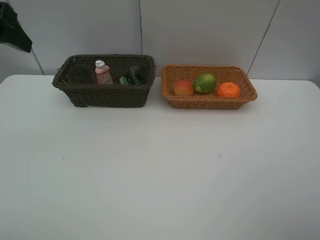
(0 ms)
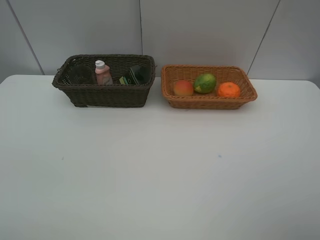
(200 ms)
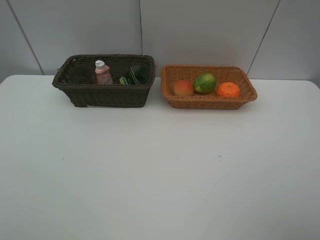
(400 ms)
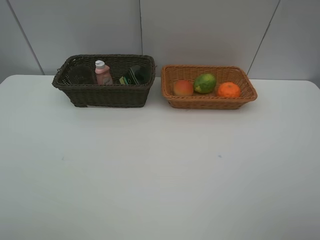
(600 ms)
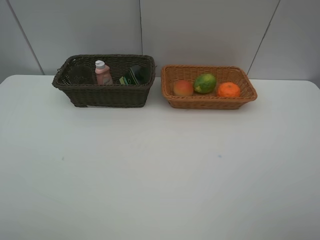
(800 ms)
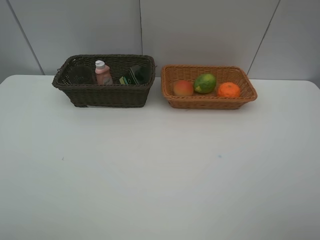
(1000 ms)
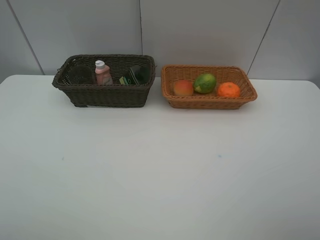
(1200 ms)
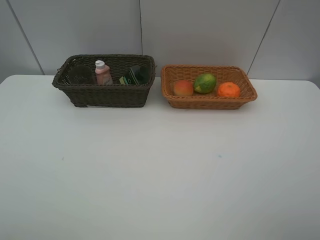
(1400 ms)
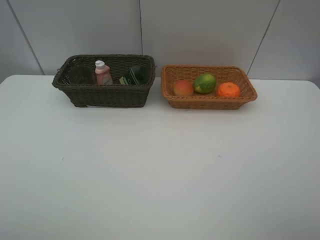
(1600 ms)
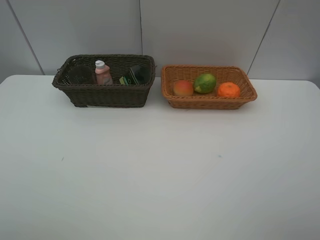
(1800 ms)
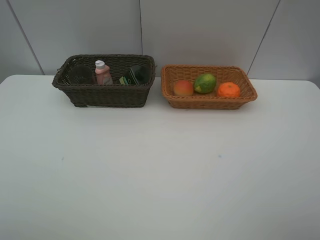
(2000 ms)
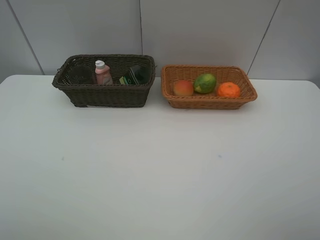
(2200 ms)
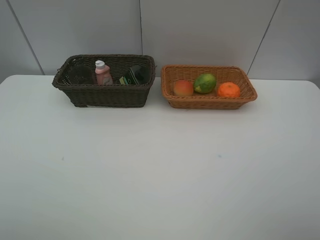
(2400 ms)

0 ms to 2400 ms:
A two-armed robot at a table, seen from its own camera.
Task of the whole recording: place multiple objects separately in different baskets.
0 ms to 1200 ms: The left gripper heads backward, covering approximately 25 cm.

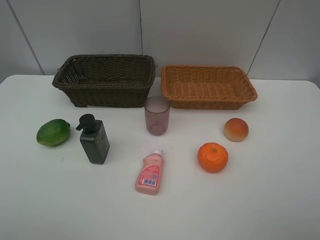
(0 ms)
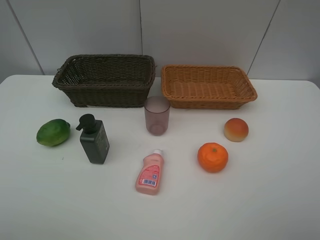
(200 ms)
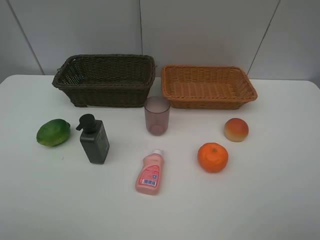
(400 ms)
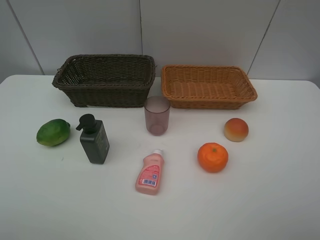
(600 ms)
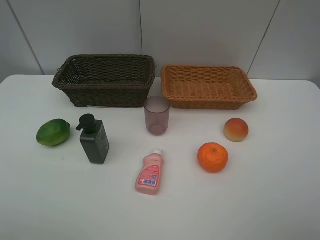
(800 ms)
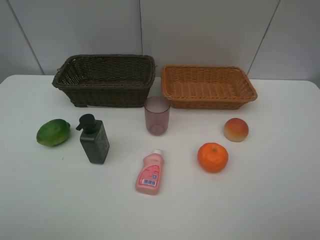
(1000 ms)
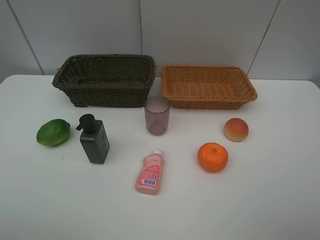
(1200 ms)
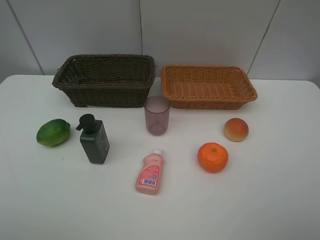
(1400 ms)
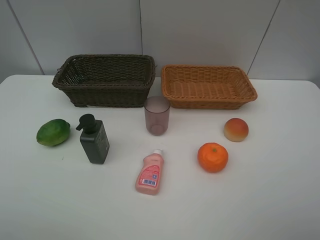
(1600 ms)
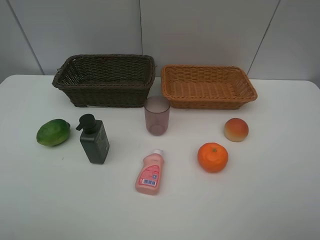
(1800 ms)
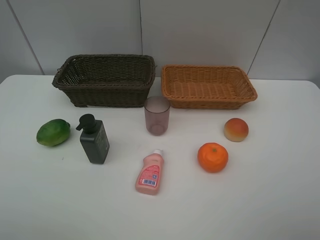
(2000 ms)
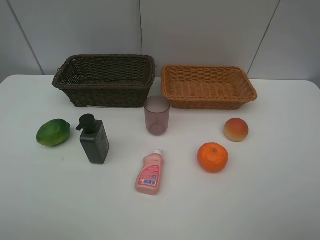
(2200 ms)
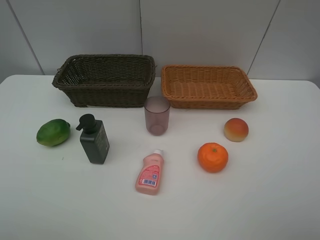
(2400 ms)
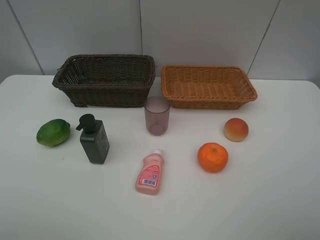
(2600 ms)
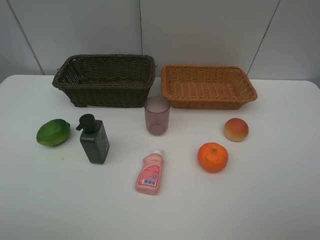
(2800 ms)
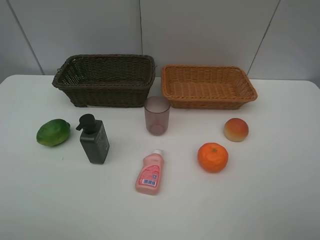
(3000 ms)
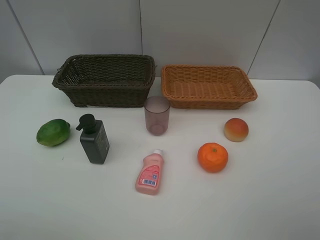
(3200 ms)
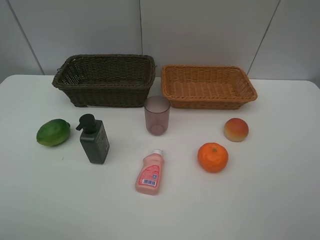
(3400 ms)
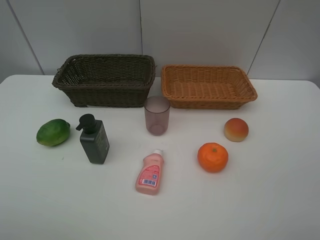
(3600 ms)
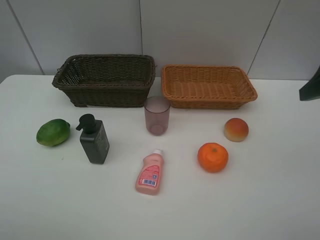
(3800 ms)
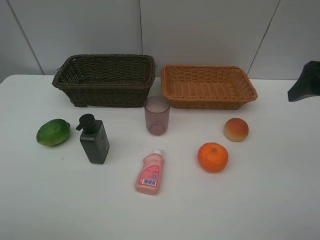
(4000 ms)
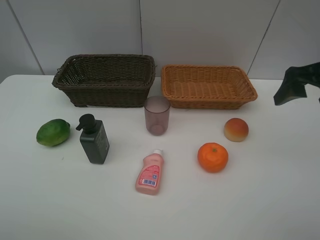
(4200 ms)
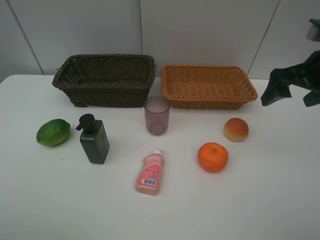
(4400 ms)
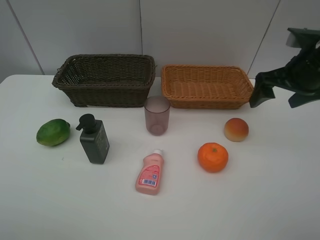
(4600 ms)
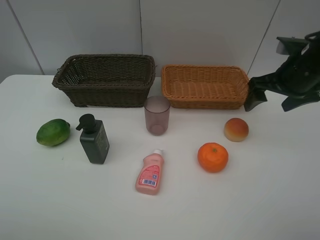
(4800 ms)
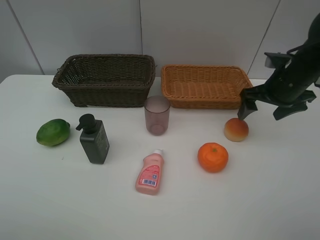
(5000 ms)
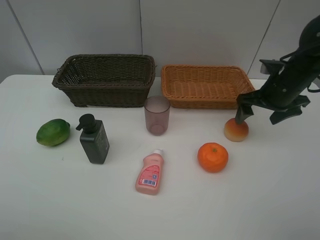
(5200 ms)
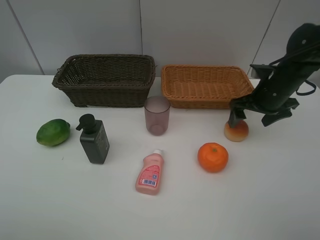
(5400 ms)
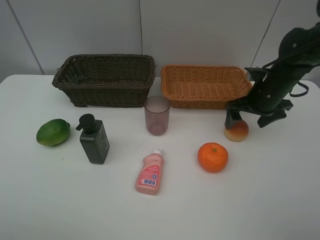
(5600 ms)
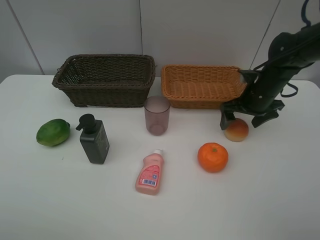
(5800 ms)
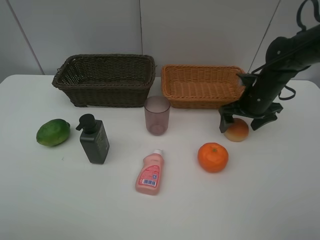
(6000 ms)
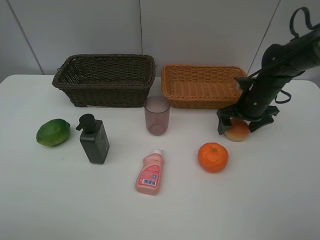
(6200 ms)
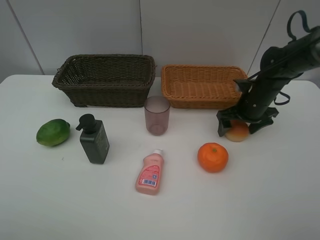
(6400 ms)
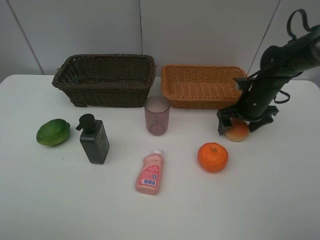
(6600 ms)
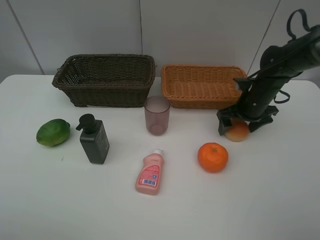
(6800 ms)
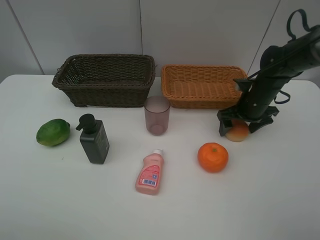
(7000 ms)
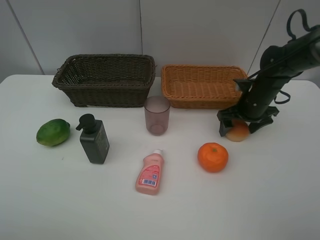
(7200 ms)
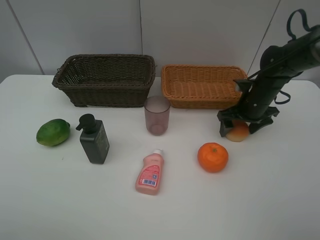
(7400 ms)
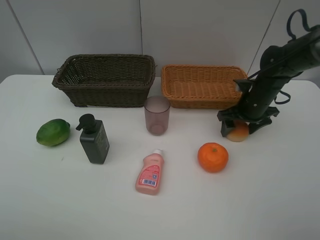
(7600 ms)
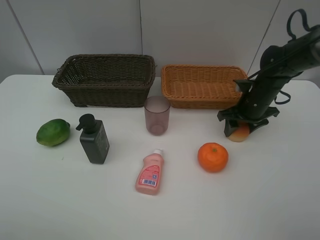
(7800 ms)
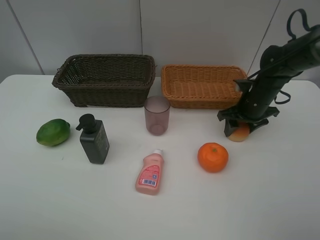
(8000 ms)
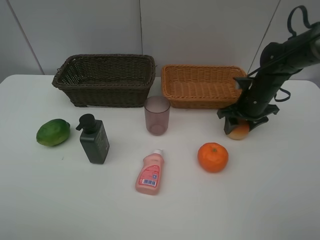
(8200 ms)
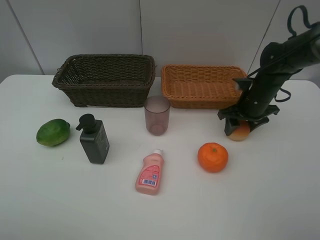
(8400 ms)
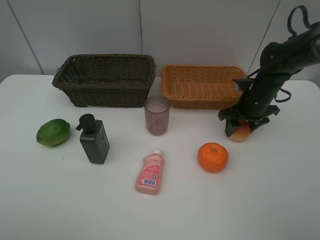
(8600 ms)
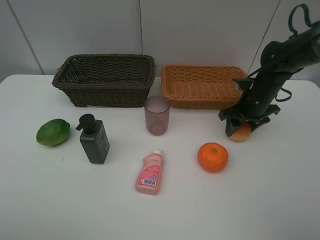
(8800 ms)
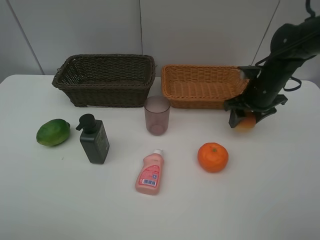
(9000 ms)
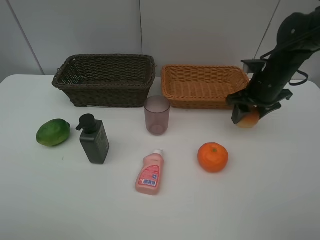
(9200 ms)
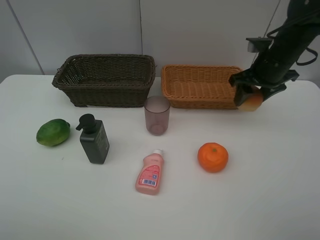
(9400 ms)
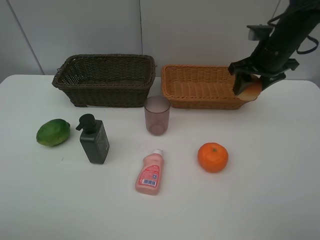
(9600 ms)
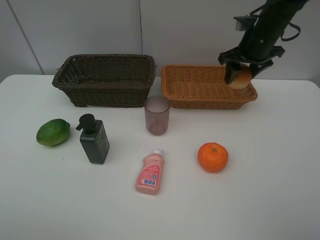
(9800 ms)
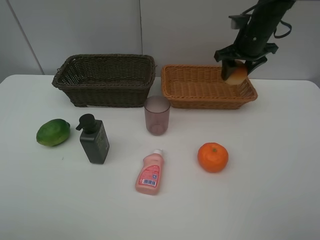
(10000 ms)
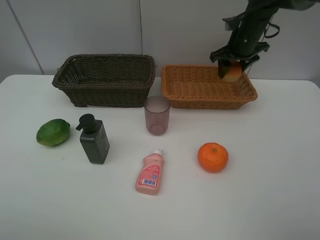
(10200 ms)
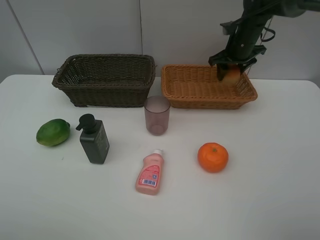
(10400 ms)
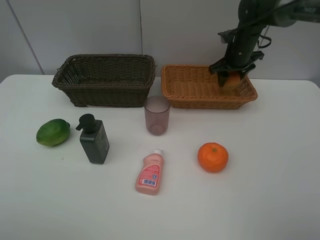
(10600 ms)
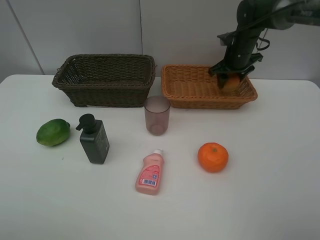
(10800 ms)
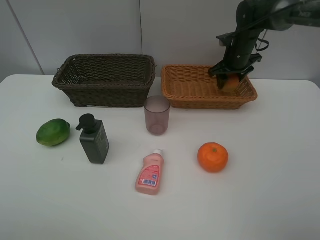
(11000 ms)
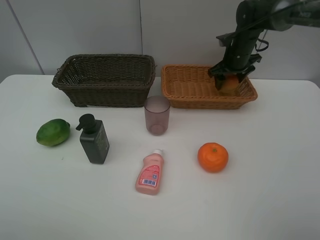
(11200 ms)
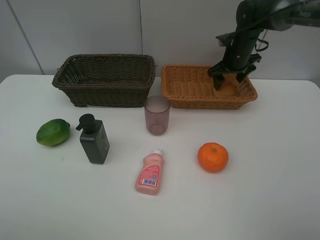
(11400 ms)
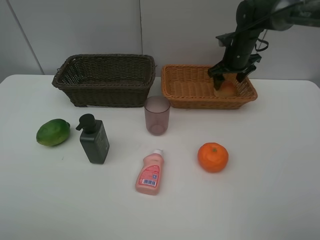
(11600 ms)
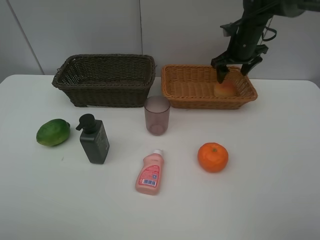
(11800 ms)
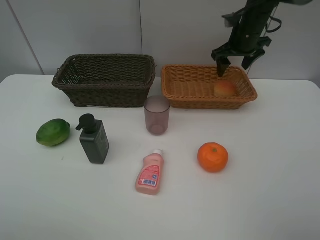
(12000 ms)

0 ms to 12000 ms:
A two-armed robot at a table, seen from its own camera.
Task of the whole recording: place multiple objects separately in different baskets.
0 ms to 1600 ms: The two grippers keep their place.
3000 ms to 4400 ms: The right gripper moves forward, some 20 cm.
4400 ms to 6000 ms: The right gripper is displaced downward and forward by approximately 15 cm.
6000 ms to 7600 ms: The right gripper closes.
7600 ms to 9000 ms: The right gripper closes.
9000 ms to 10400 ms: The right gripper goes approximately 15 cm forward.
10400 ms to 12000 ms: The right gripper opens up.

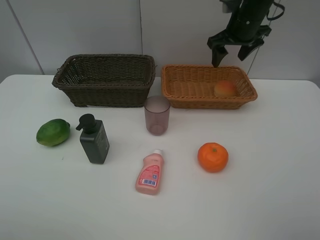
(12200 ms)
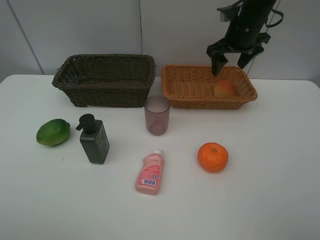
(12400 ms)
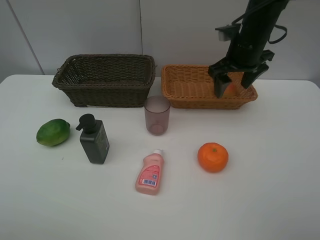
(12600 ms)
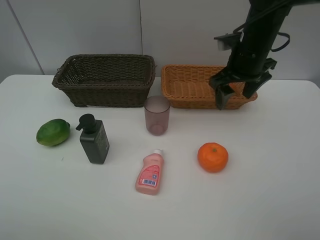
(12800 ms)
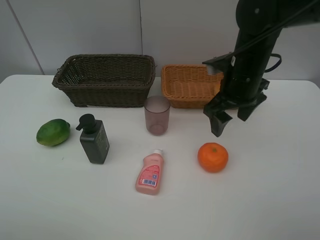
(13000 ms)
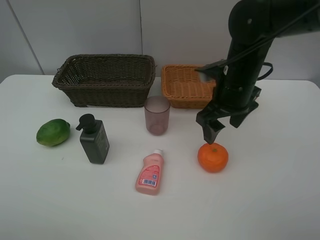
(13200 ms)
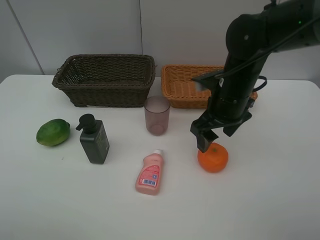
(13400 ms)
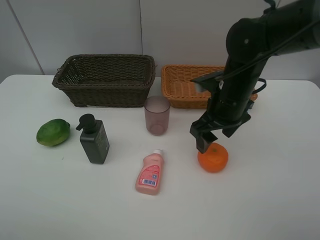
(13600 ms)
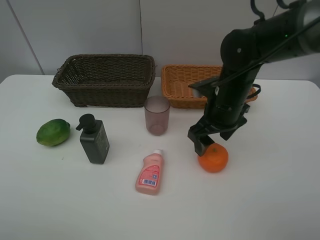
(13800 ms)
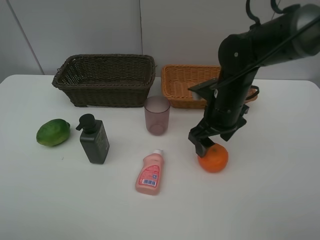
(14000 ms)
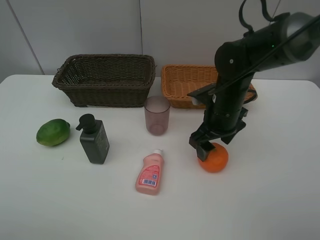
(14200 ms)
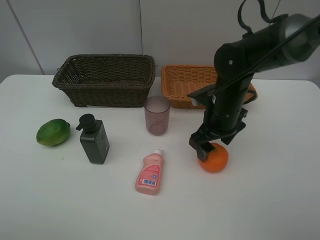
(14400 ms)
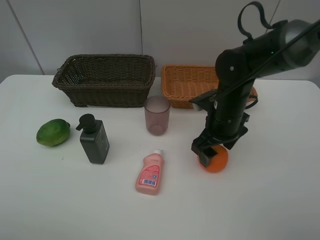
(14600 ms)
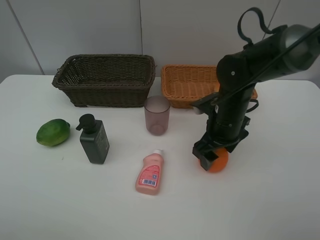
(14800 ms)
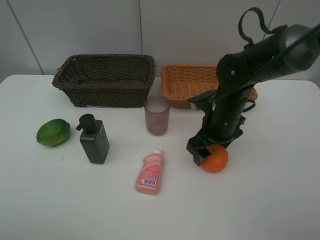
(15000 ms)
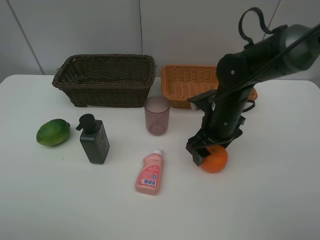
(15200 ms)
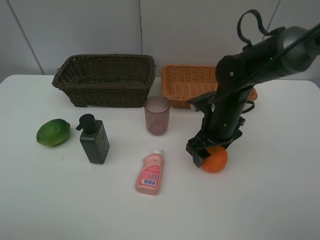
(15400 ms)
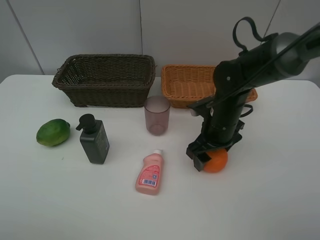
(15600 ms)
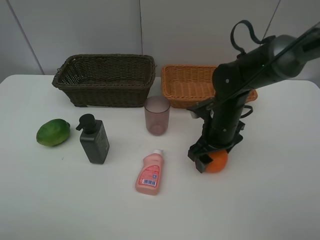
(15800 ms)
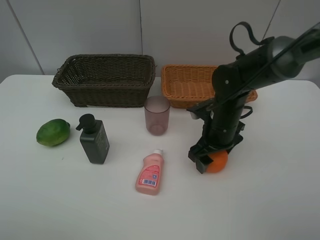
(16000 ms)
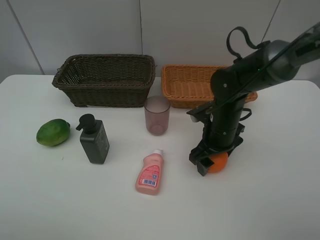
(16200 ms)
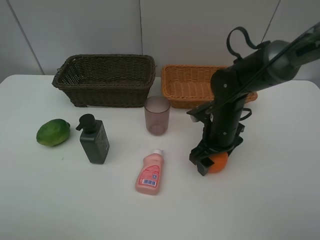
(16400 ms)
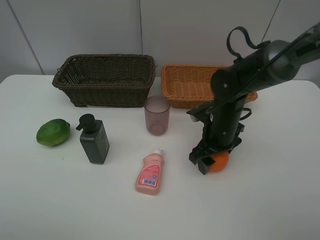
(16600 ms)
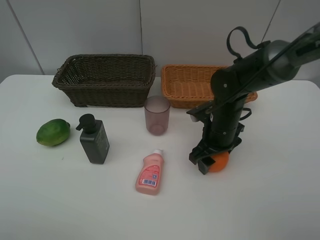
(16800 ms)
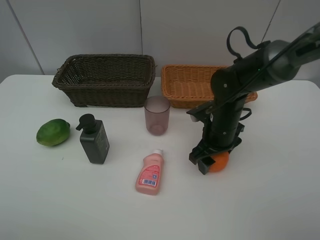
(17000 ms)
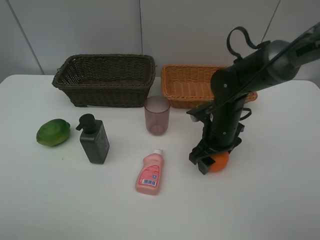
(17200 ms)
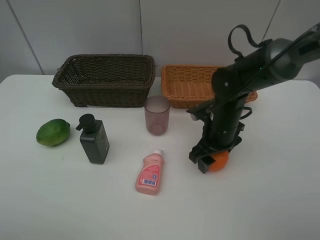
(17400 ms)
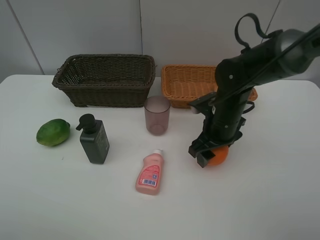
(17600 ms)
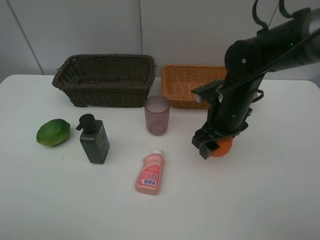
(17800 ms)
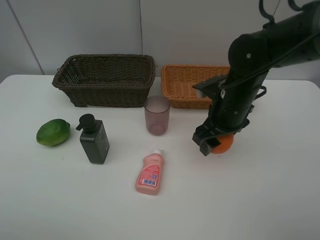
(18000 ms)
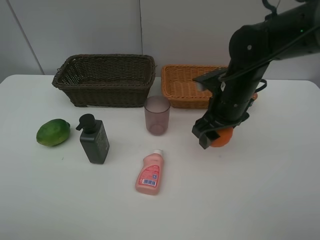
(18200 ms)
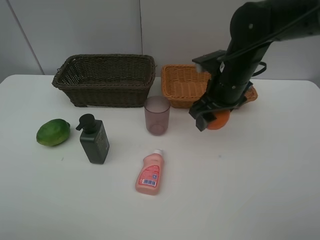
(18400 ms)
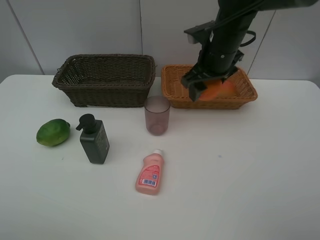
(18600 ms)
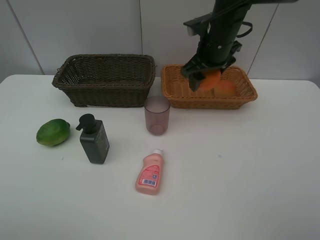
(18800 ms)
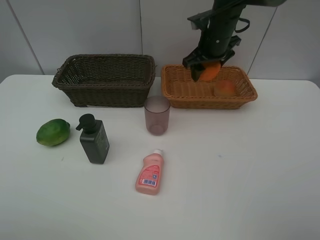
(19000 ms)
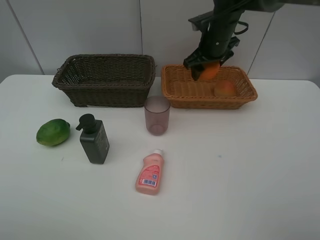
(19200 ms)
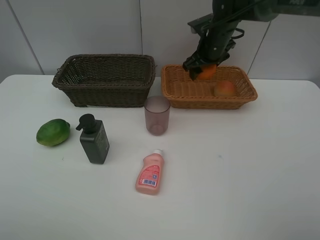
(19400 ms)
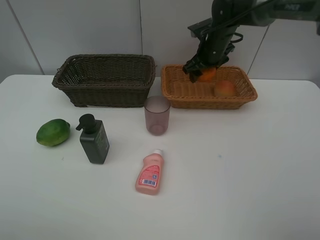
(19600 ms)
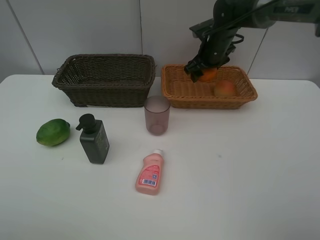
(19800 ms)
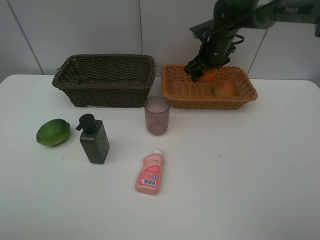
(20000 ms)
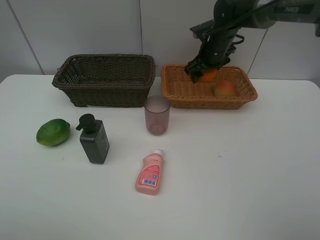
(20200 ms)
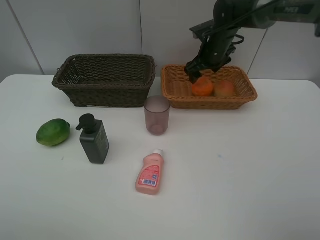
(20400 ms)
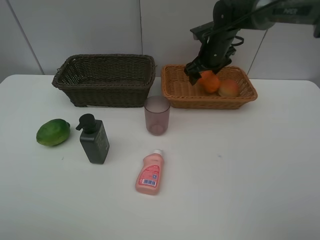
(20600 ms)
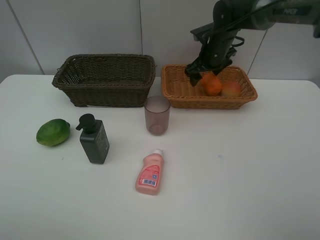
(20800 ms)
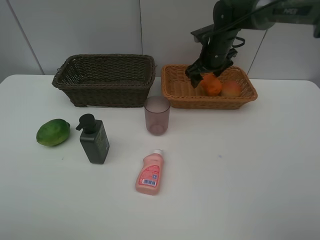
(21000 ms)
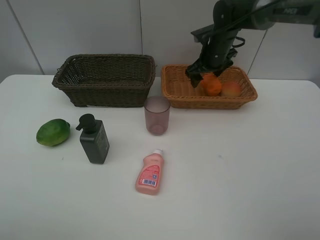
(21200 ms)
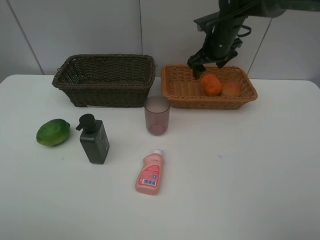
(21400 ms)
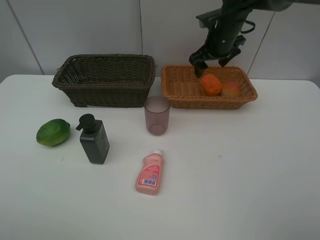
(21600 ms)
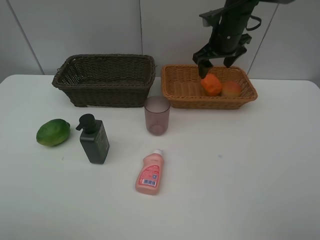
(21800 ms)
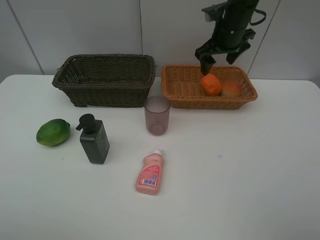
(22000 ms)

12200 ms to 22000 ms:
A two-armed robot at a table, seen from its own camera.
Task of the whole recording: place multiple objects separately in different baskets.
12200 ms to 13600 ms: The right gripper moves backward and downward, about 20 cm.
13600 ms to 15000 ms: There are only small adjustments of the grippers.
15000 ms to 16400 ms: The grippers move only a little.
16400 ms to 17800 ms: The right gripper shifts approximately 5 cm upward.
17800 ms to 19200 ms: The right gripper heads forward, covering some 15 cm.
19200 ms to 20600 ms: The right gripper opens its fingers.
20600 ms to 22000 ms: The right gripper moves upward, approximately 5 cm.
